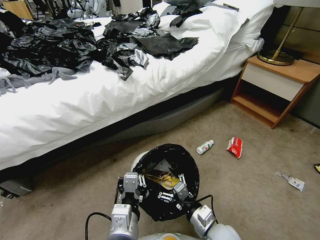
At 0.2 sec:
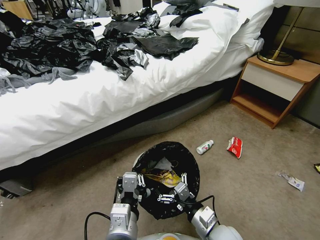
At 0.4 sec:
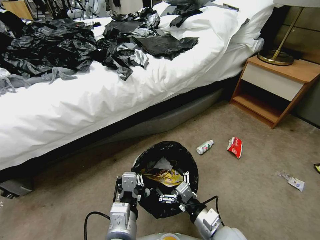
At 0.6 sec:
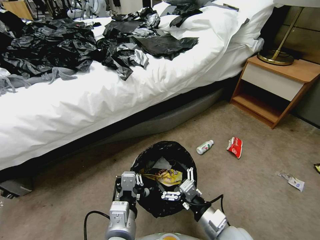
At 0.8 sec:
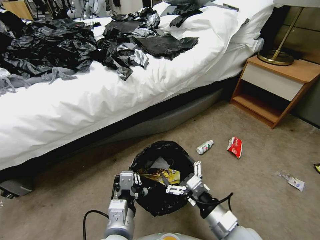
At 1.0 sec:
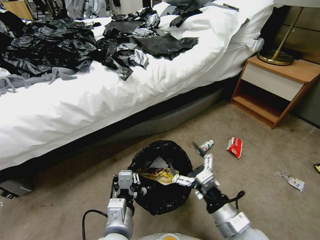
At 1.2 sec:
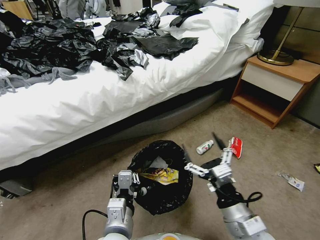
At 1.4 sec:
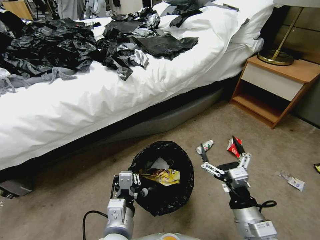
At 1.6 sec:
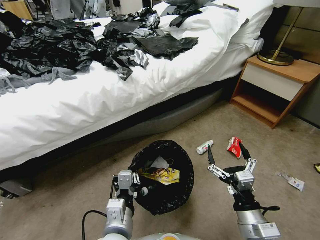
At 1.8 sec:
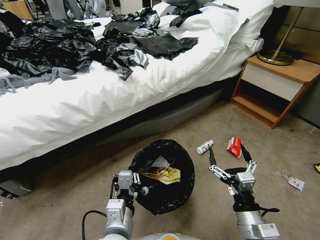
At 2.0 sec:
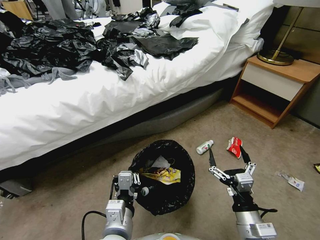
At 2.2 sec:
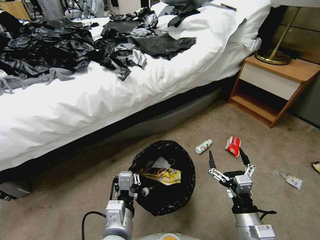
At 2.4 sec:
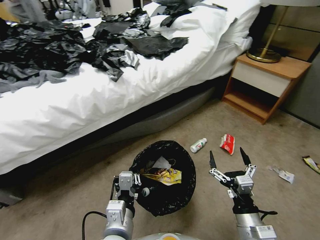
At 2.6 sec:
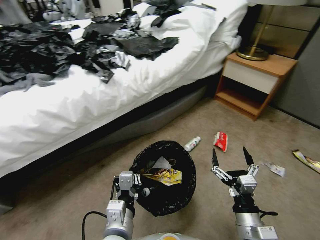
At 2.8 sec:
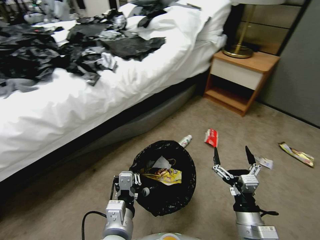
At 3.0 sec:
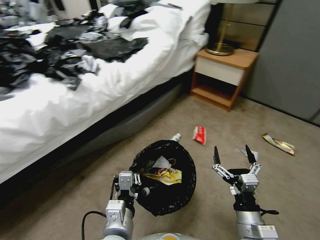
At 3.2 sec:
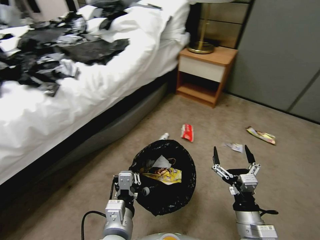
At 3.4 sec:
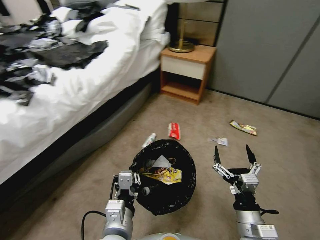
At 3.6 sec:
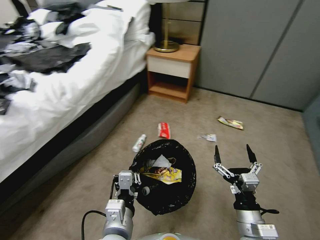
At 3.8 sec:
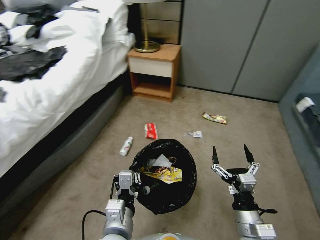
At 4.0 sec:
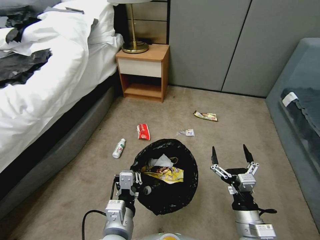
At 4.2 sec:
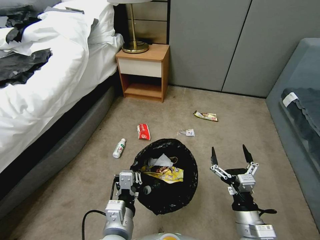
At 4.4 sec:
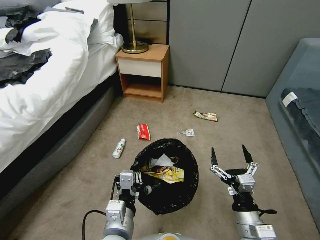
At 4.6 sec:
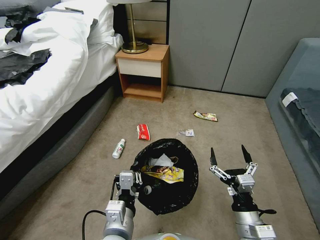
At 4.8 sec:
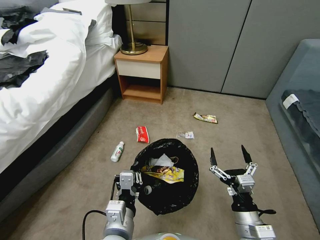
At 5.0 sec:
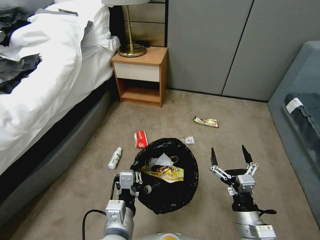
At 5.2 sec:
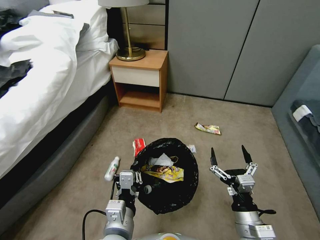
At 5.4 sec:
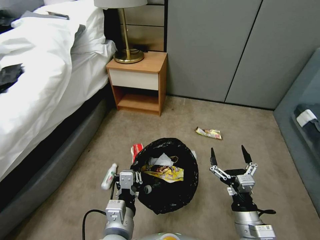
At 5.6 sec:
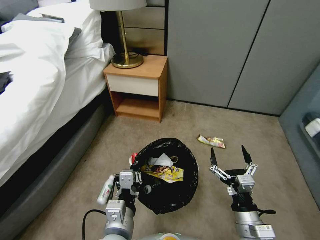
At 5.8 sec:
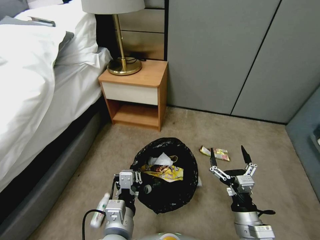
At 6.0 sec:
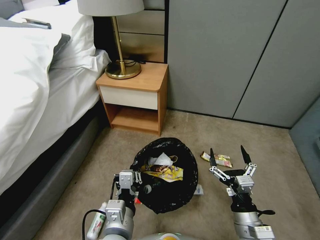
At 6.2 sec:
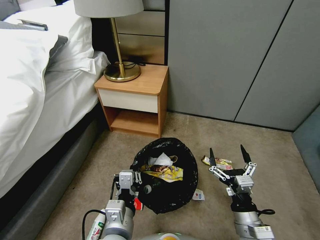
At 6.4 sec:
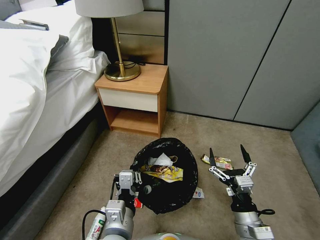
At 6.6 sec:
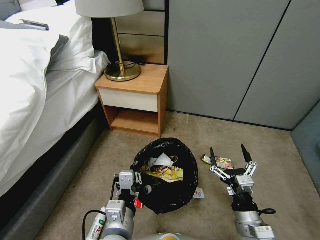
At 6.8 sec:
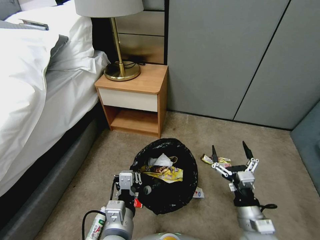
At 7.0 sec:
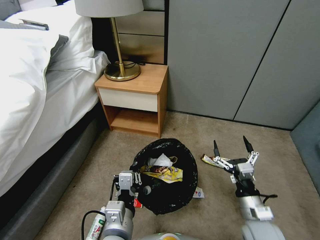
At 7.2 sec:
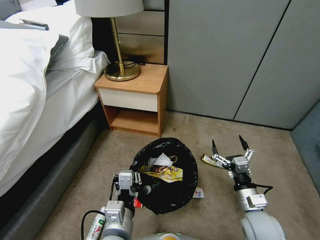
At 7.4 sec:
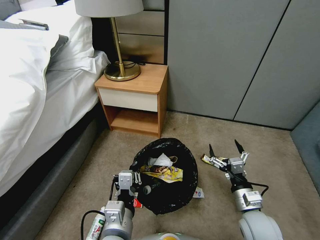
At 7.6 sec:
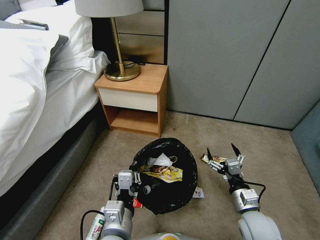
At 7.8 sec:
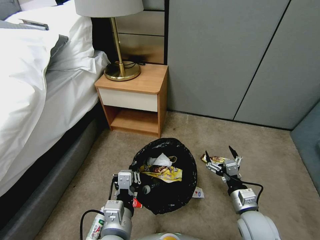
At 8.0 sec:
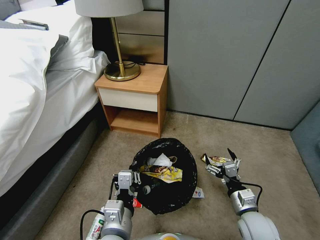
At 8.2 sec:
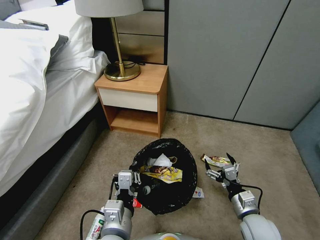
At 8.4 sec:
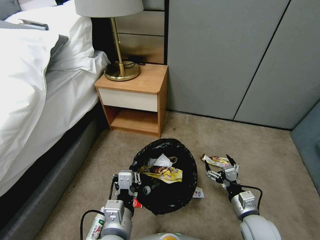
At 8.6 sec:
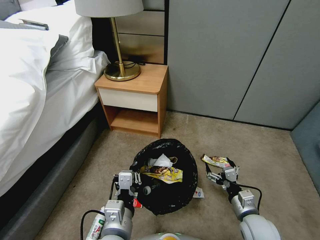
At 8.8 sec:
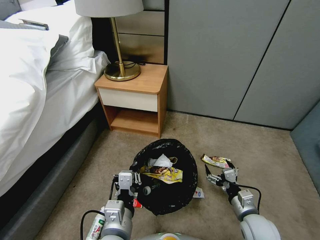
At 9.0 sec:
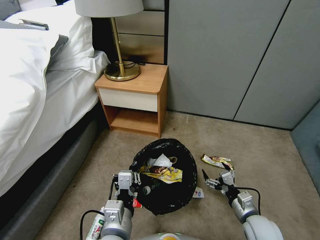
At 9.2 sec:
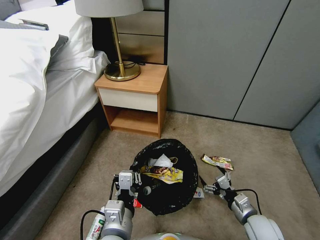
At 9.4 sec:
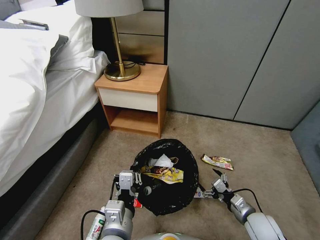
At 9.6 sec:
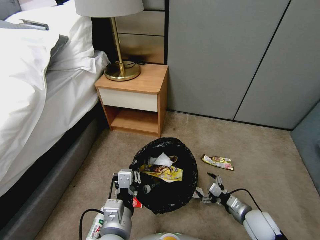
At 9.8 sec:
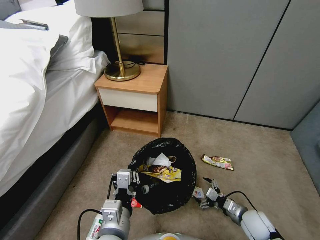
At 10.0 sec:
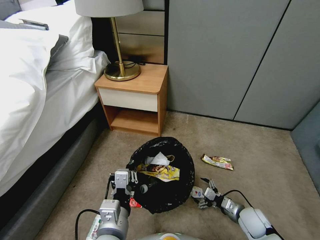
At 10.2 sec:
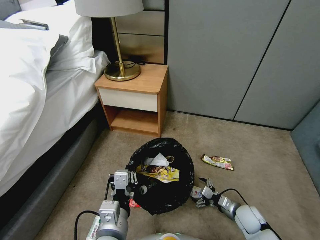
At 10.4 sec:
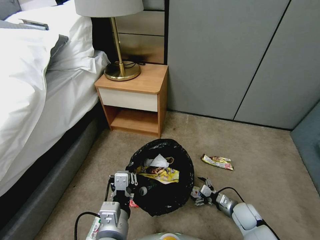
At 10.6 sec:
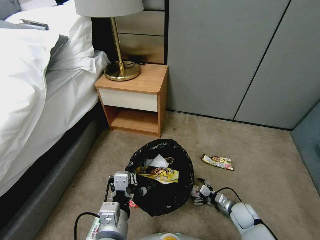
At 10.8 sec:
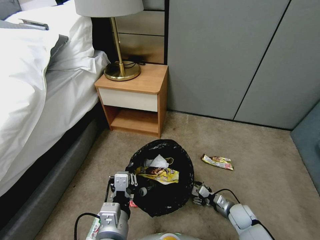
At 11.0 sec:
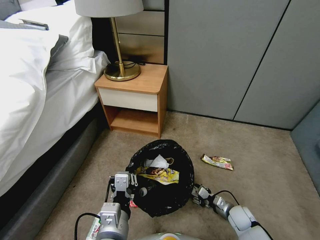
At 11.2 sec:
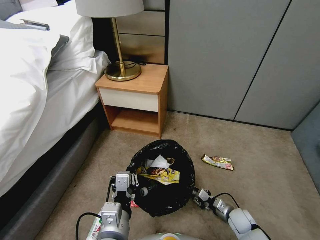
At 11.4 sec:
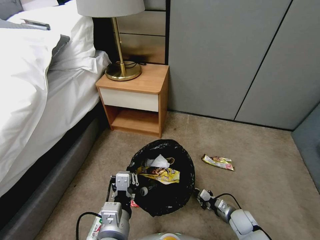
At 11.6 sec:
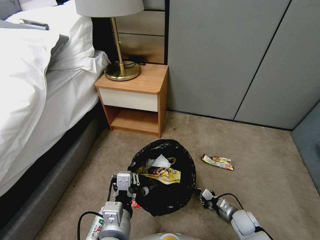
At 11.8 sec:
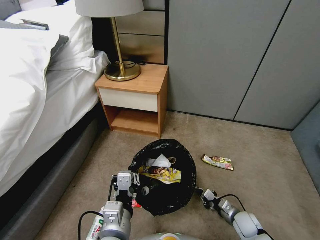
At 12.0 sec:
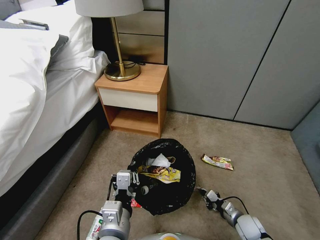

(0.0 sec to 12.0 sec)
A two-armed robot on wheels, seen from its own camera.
Task of the whole recording: Pick up the trash bin, then pick up the garbage from the floor and place it into the trash bin.
0.0 sec - 1.6 sec: The right gripper travels upward and to the right by about 10 cm.
6.0 sec - 7.6 sec: The right gripper is displaced forward by some 5 cm.
7.6 sec - 9.0 sec: The right gripper ends up approximately 5 cm from where it was.
9.0 sec - 10.4 sec: The right gripper goes some 15 cm downward and forward.
10.4 sec - 12.0 sec: The right gripper closes its fingers.

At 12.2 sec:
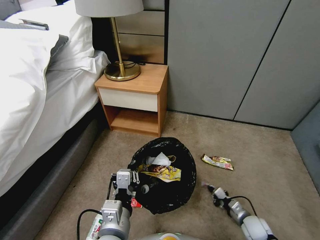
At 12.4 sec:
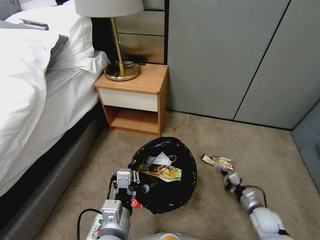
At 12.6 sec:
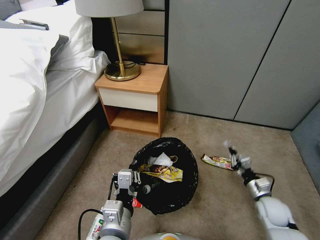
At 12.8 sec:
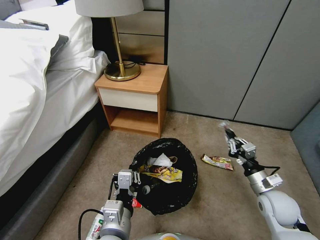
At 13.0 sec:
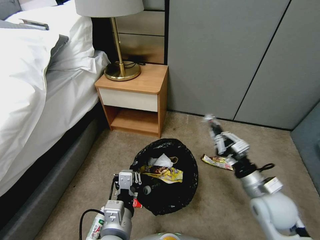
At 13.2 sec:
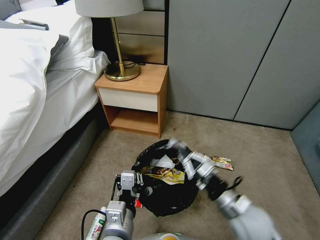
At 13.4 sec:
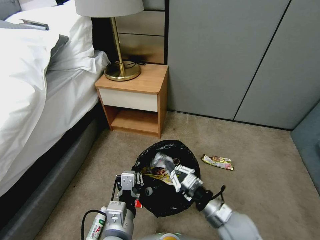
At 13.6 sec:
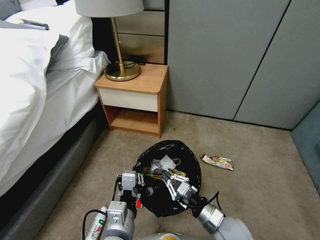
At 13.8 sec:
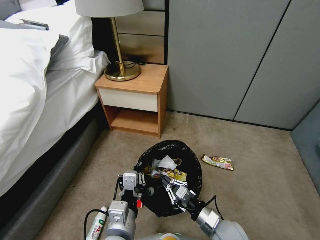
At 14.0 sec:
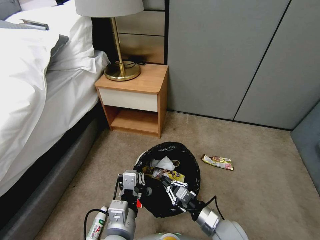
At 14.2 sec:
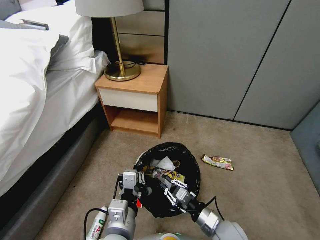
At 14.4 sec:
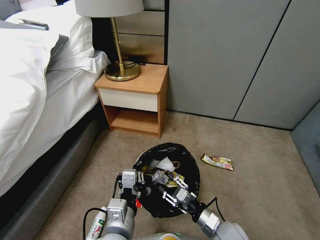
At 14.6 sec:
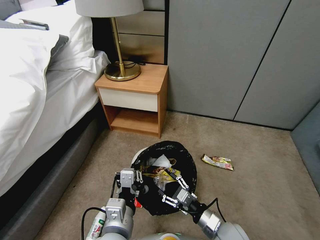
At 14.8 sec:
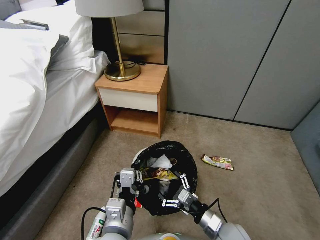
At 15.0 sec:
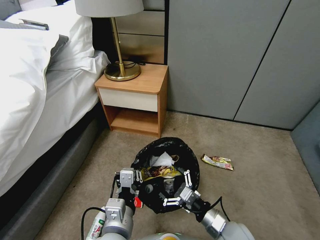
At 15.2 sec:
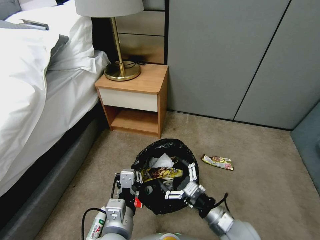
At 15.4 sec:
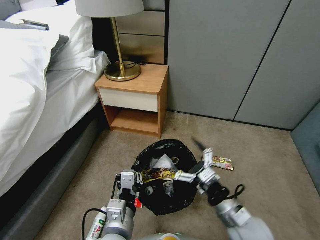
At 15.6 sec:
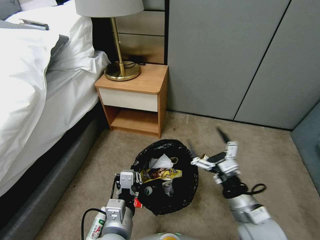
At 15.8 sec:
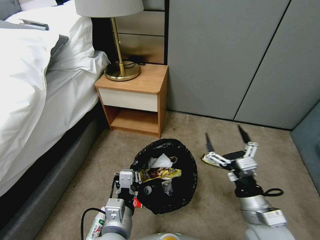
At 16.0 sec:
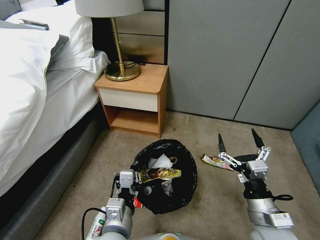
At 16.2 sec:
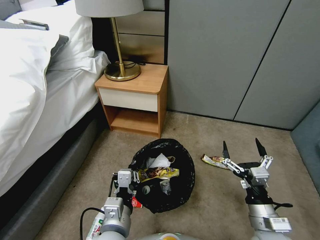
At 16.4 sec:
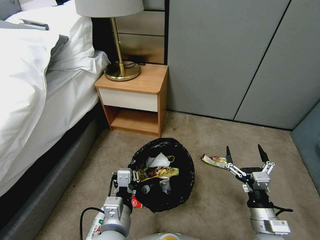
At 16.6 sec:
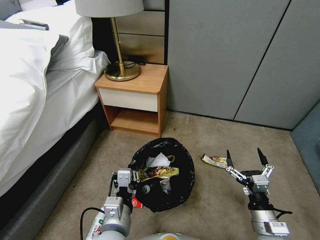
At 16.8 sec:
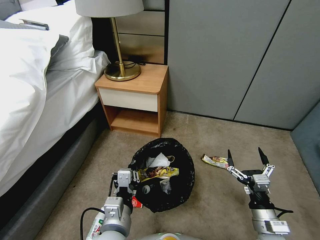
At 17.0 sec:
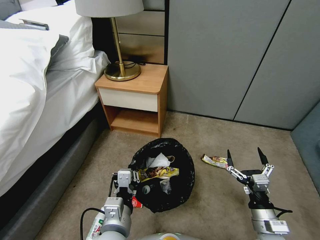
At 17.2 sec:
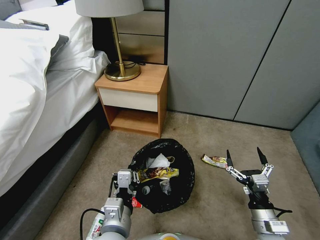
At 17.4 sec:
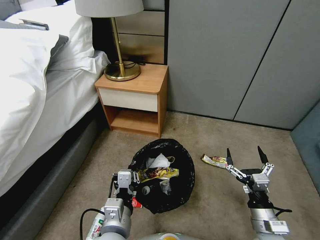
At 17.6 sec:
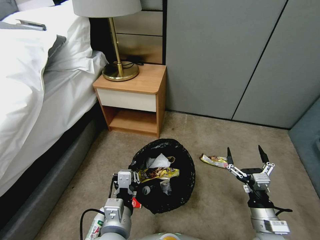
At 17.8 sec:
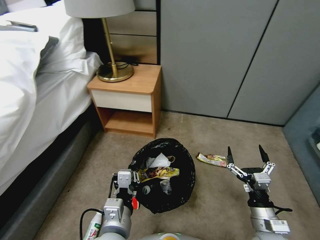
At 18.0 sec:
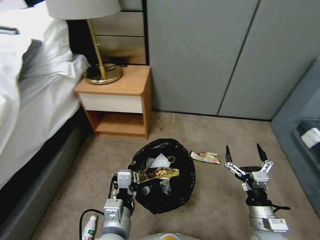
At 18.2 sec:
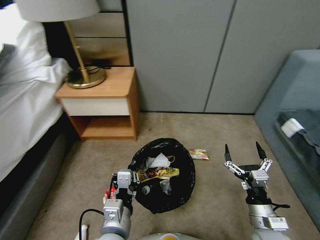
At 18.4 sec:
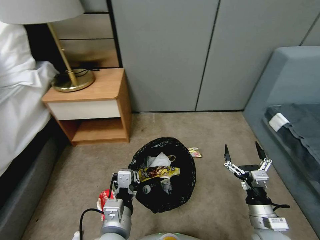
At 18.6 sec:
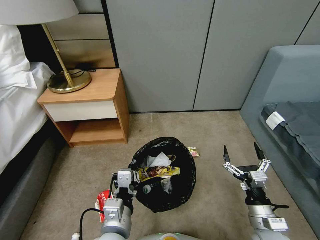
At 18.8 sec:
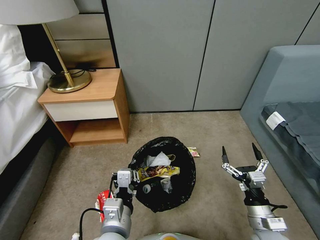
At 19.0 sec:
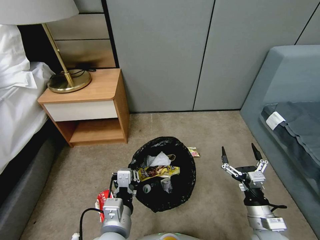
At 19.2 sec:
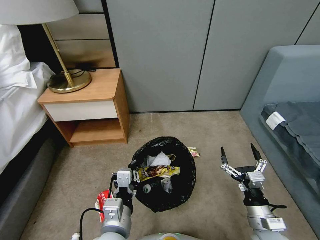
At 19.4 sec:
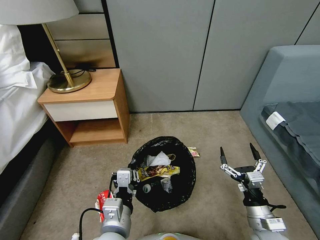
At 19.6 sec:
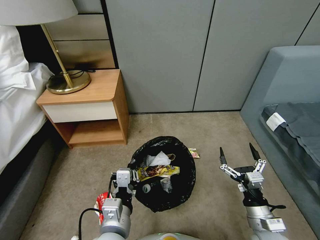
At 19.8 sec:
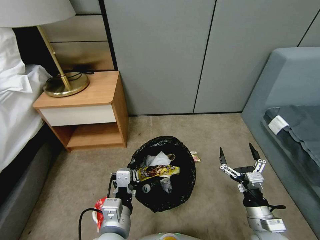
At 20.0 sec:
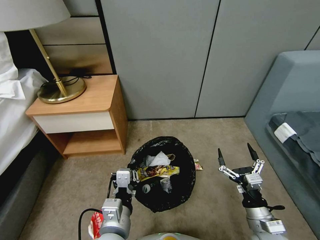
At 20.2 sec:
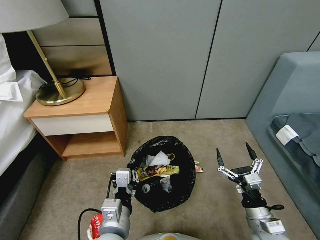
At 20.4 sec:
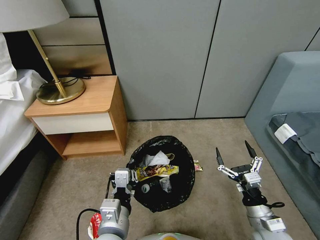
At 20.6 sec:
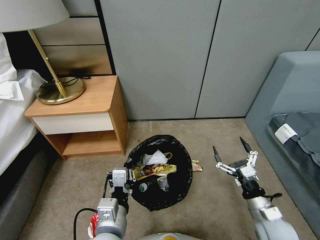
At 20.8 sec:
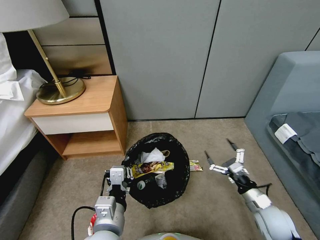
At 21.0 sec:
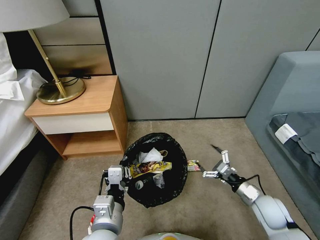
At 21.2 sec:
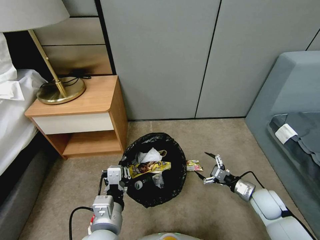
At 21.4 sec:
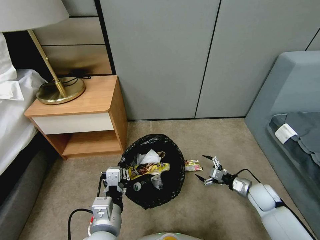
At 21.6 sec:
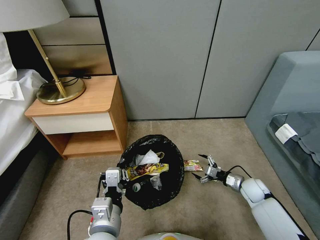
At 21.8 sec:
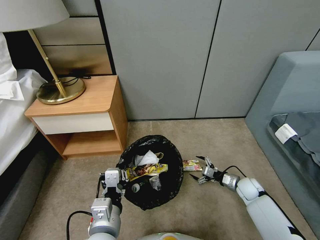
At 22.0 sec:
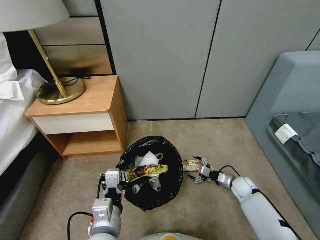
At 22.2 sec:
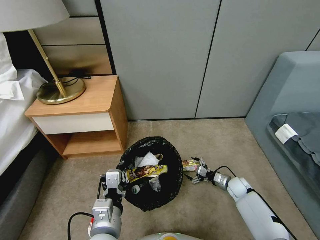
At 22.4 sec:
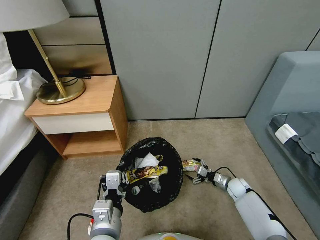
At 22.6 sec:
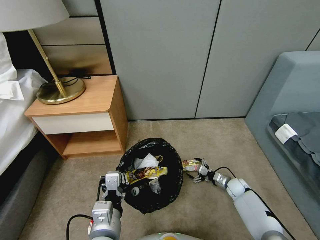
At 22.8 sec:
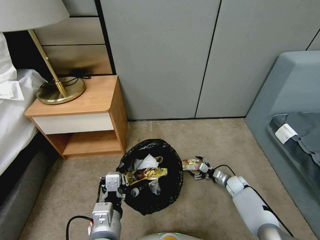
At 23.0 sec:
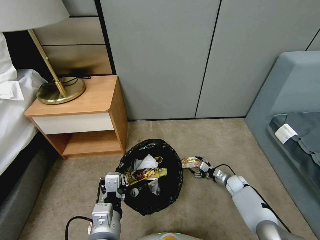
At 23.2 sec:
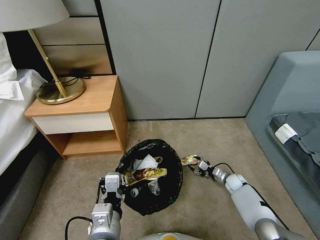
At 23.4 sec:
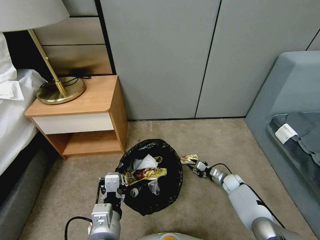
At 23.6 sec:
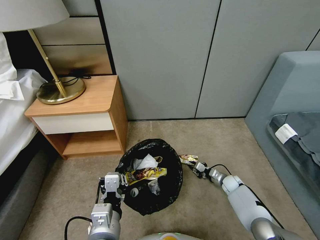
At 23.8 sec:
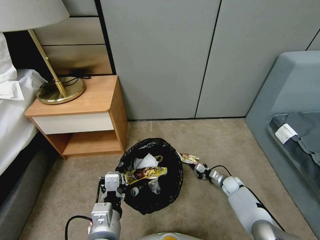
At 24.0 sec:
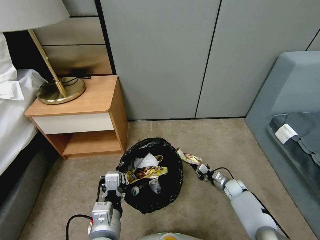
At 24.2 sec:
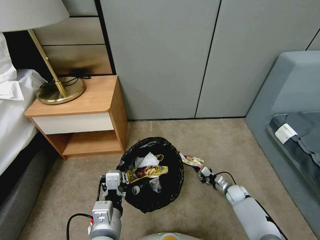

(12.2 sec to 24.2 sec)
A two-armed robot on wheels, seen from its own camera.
Task of the whole recording: Pick up the trash bin, then pick up the garbage from the floor and place it into the trash bin.
12.2 sec - 13.8 sec: The right gripper goes some 20 cm to the left and upward.
13.8 sec - 15.2 sec: The right gripper is displaced upward by roughly 5 cm, and opens.
15.2 sec - 16.6 sec: The right gripper travels to the right by about 10 cm.
19.8 sec - 21.2 sec: The right gripper is displaced forward, to the right and downward by about 15 cm.
21.2 sec - 22.6 sec: The right gripper moves downward and forward, some 15 cm.
22.6 sec - 24.2 sec: The right gripper closes its fingers.
